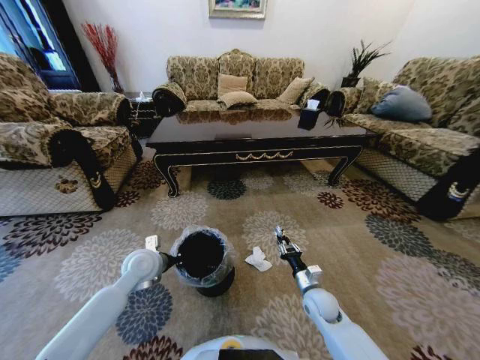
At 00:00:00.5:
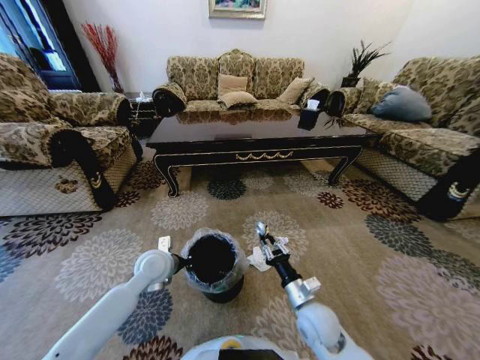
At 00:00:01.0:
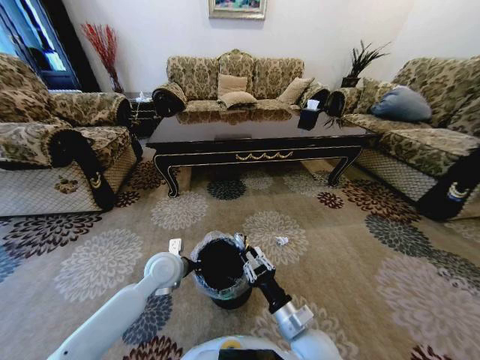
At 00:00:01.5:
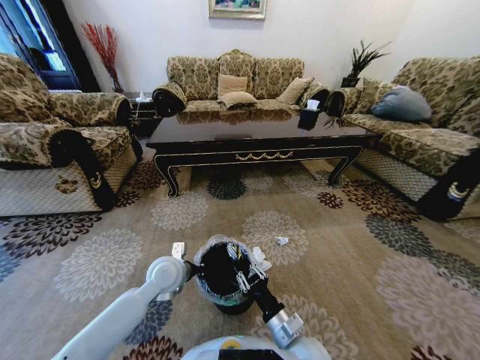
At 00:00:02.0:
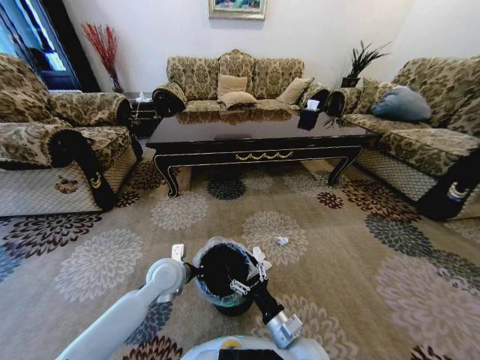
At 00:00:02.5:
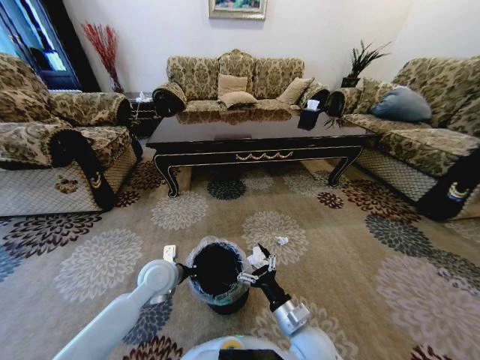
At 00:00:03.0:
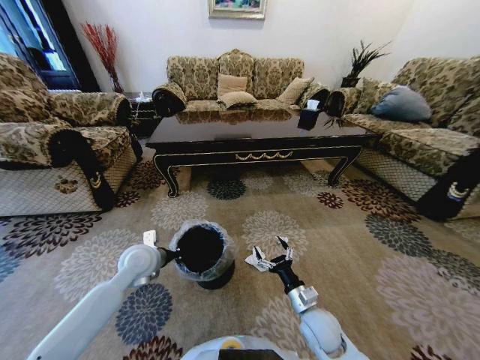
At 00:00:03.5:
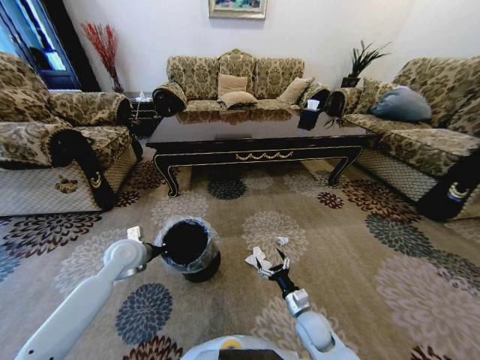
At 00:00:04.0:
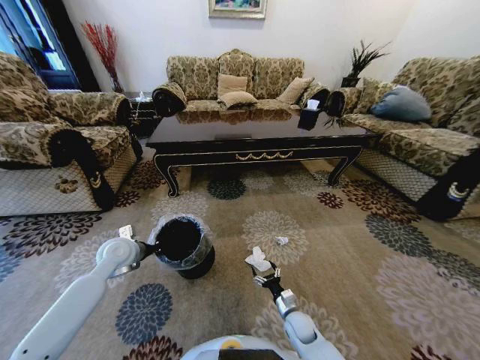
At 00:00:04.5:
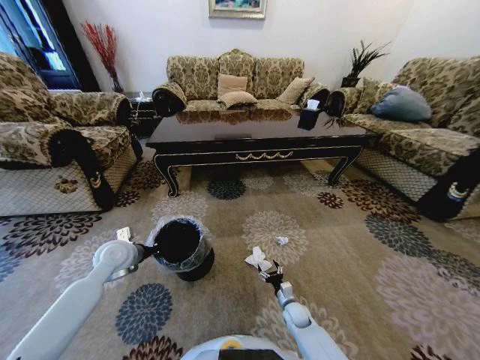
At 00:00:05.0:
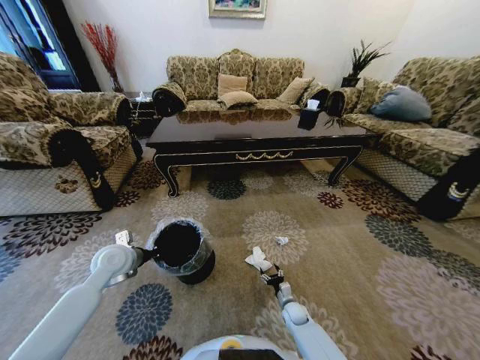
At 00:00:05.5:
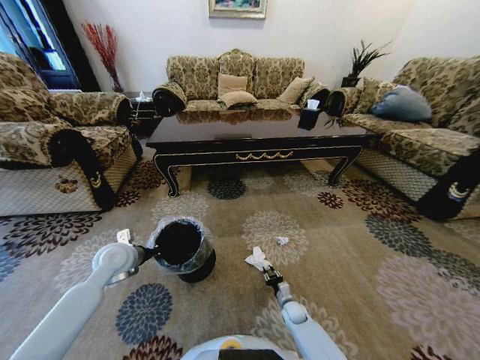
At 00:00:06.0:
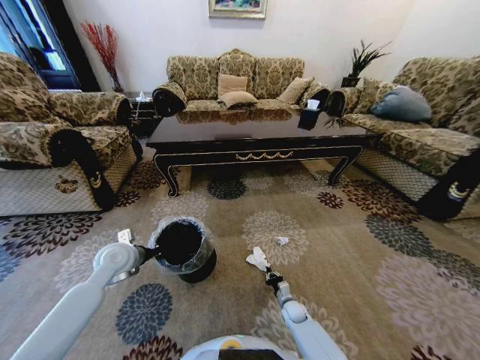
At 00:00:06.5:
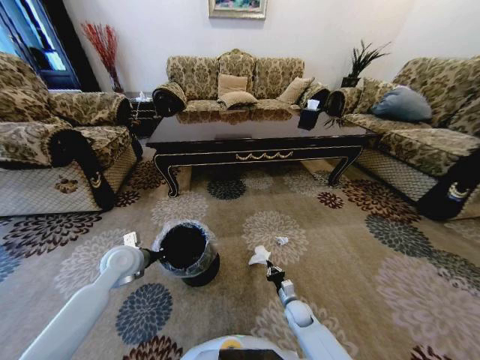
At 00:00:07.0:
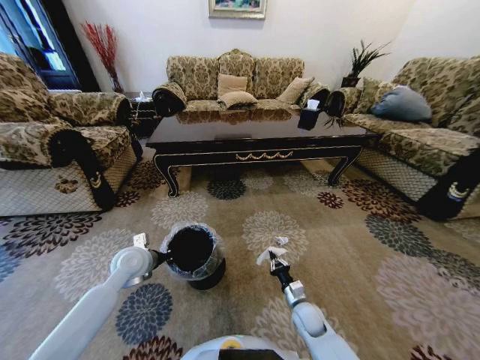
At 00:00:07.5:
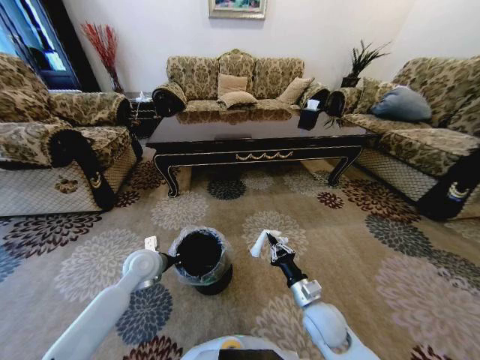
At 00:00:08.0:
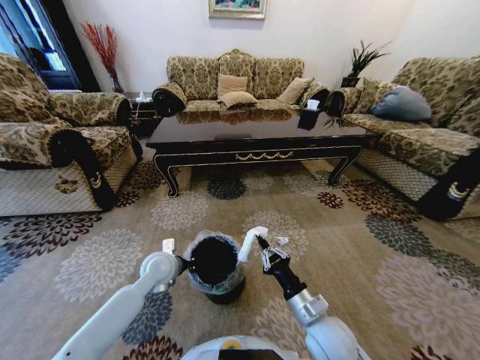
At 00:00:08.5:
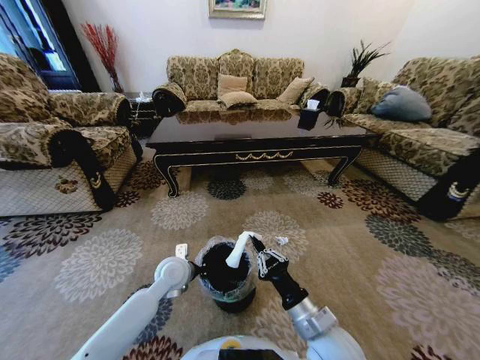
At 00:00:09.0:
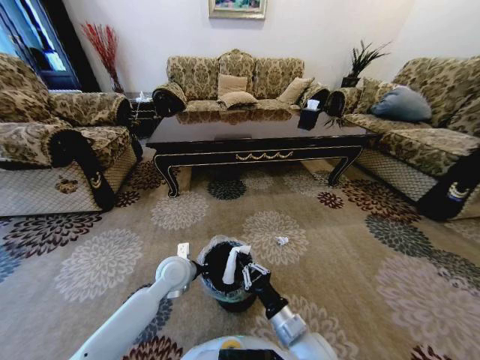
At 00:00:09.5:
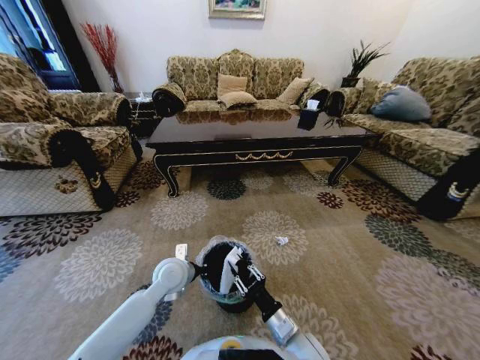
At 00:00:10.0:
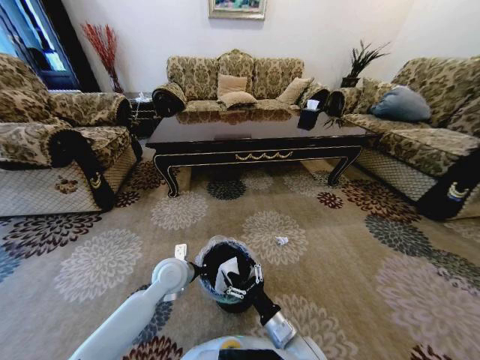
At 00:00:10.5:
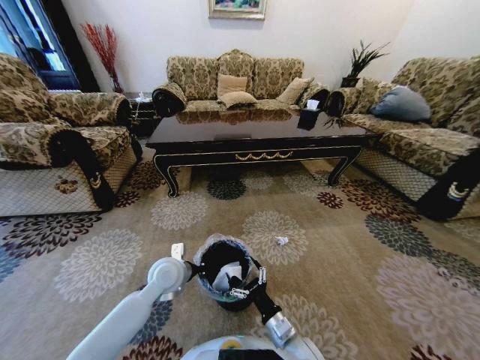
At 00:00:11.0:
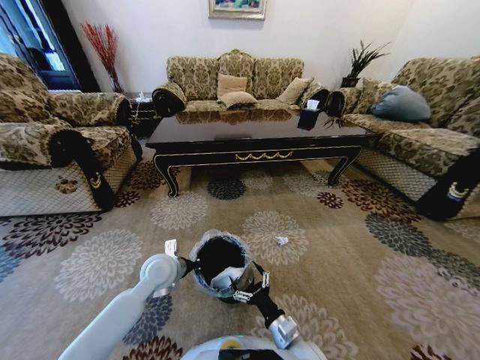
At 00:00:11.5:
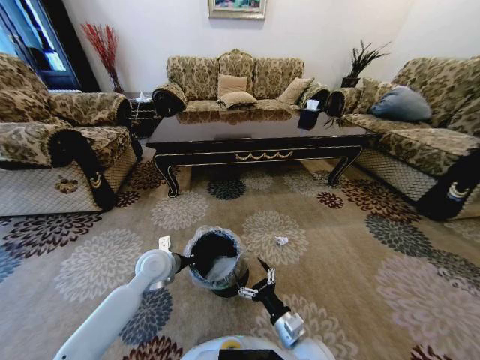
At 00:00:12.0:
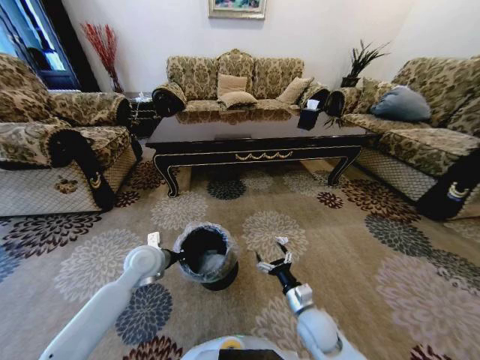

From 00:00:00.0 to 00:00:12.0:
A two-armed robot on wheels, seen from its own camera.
Task of the whole recording: Move to the front of the table and pick up the trash from the floor, then place it into the trash bin.
From 00:00:00.0 to 00:00:02.0: The left gripper moves to the right, approximately 5 cm, while the right gripper is displaced backward, to the left and upward by approximately 20 cm, and opens its fingers.
From 00:00:02.0 to 00:00:04.0: The right gripper travels downward, forward and to the right by about 20 cm, while the left gripper is displaced to the left by some 15 cm.
From 00:00:04.0 to 00:00:06.0: The right gripper shifts roughly 10 cm downward and forward, and closes up.
From 00:00:06.0 to 00:00:08.0: The left gripper is displaced to the right by some 10 cm. The right gripper shifts some 30 cm upward.
From 00:00:08.0 to 00:00:10.0: The right gripper travels downward by some 5 cm, and opens its fingers.
From 00:00:10.0 to 00:00:12.0: The left gripper heads to the left, covering some 10 cm, while the right gripper shifts some 10 cm to the right and forward.

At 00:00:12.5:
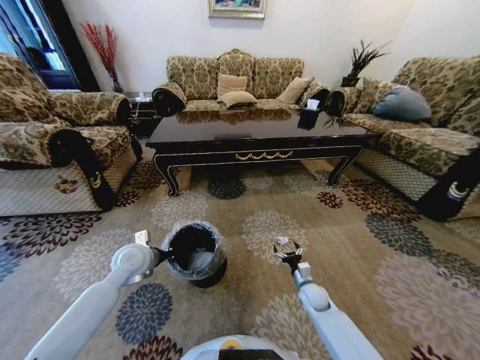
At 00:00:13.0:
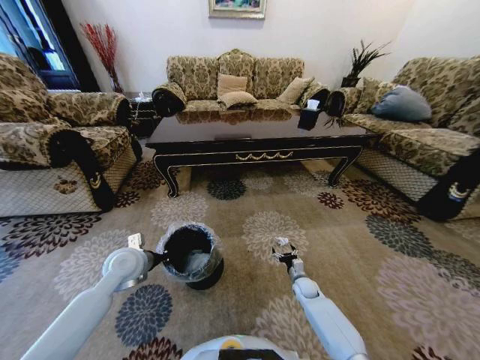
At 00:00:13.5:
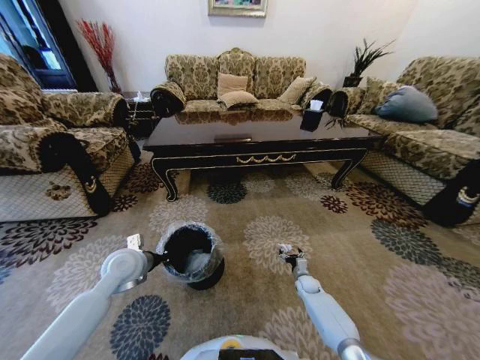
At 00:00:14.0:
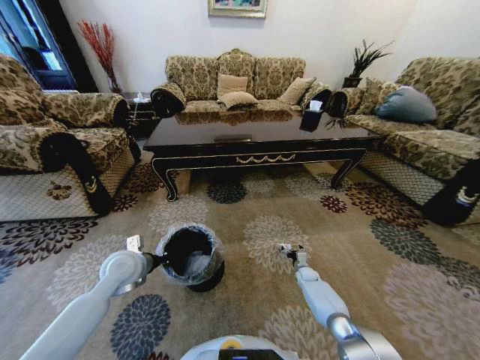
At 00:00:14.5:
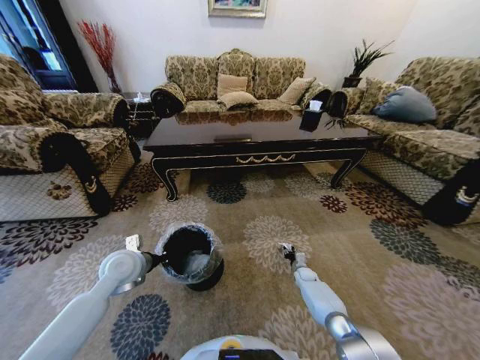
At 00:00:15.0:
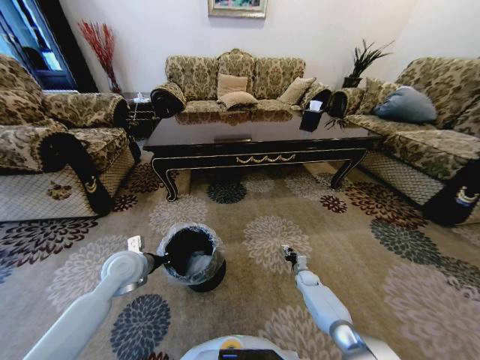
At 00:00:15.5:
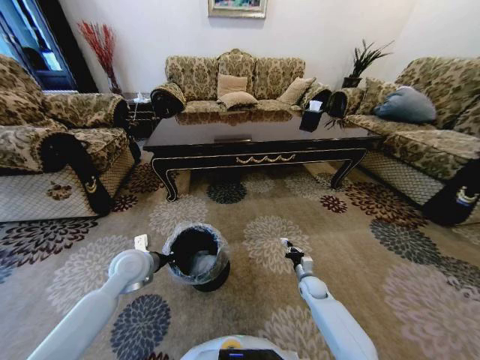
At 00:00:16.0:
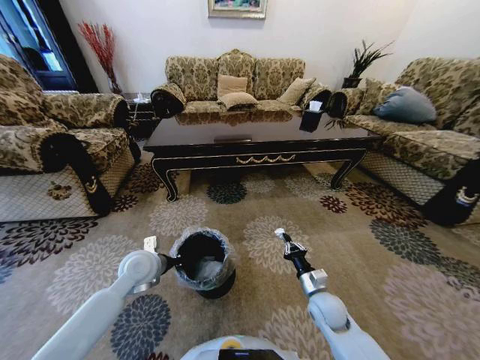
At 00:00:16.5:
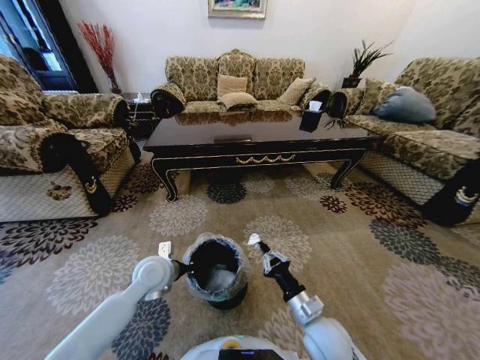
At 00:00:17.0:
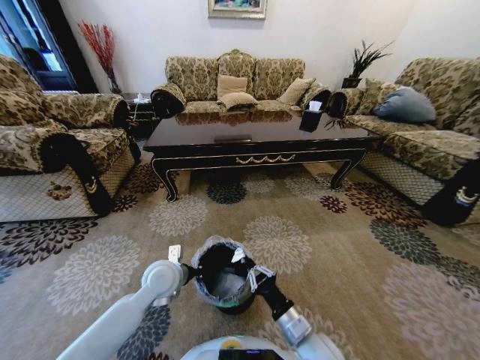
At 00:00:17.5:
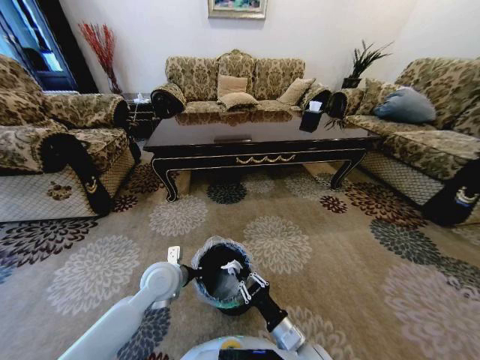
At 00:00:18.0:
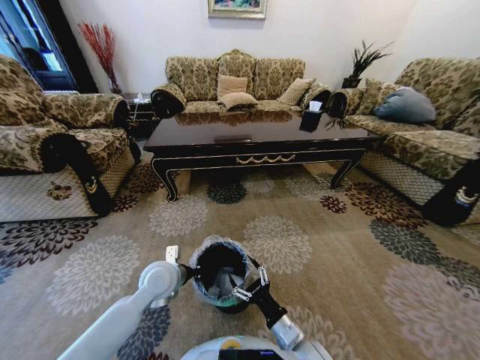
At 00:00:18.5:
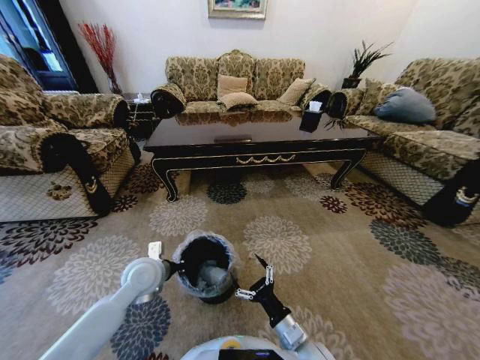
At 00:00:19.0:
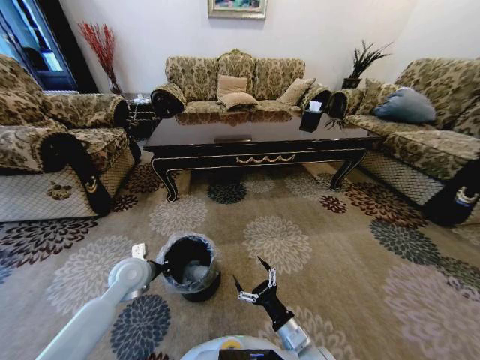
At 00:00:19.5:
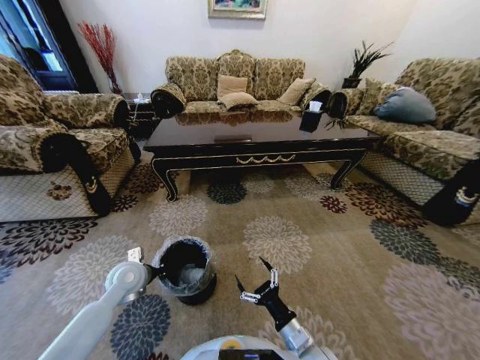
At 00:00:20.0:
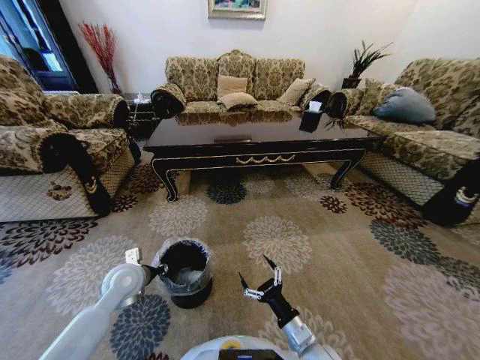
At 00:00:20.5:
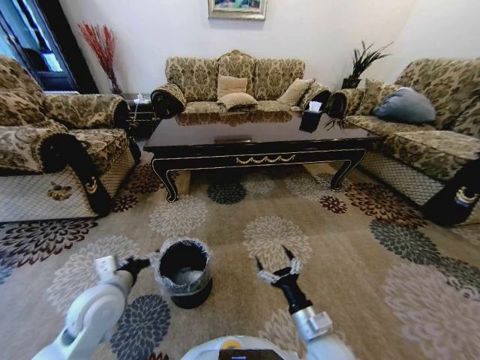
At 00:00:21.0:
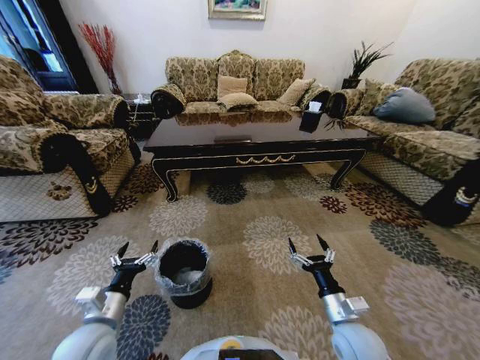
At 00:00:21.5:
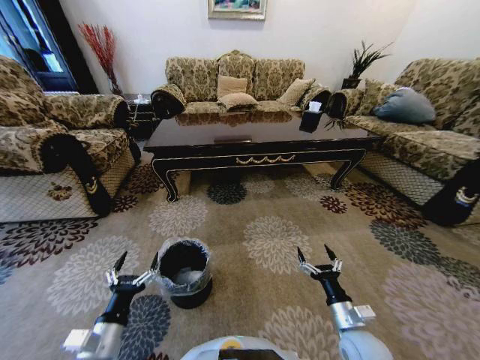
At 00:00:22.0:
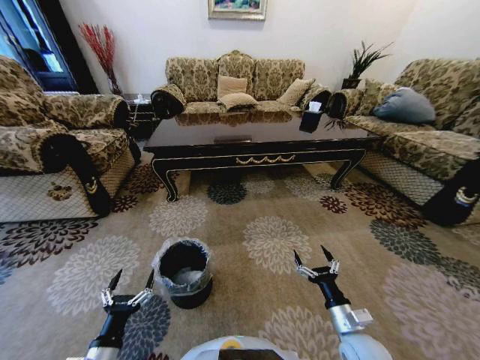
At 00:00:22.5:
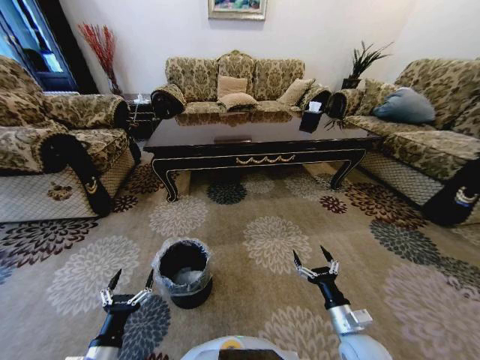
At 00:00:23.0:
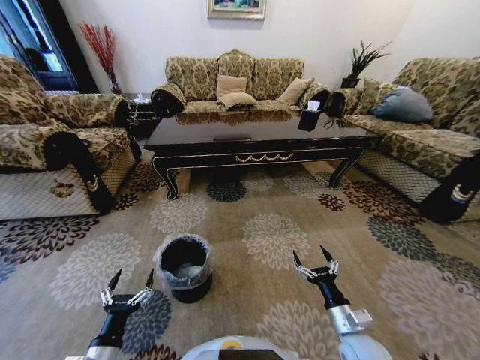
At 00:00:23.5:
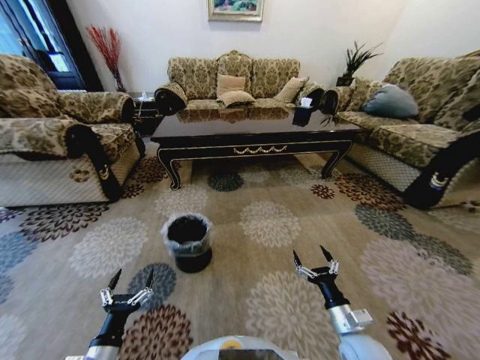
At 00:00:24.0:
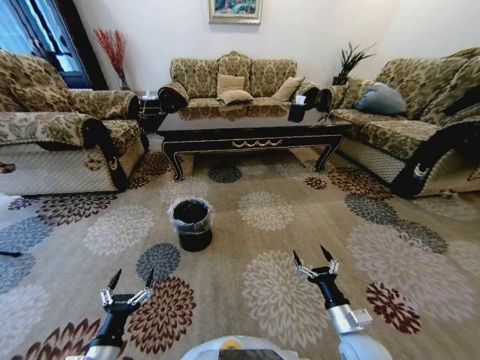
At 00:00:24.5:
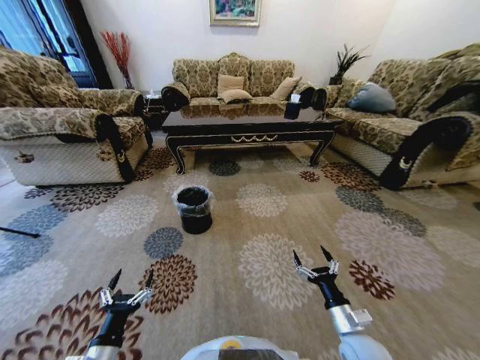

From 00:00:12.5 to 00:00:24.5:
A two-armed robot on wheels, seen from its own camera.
Task of the whole recording: Move to the front of the table and pick up the trash from the floor, then place it into the trash bin.
From 00:00:12.5 to 00:00:14.5: The right gripper is displaced forward, downward and to the right by some 15 cm, and closes its fingers.
From 00:00:14.5 to 00:00:16.5: The right gripper travels upward, backward and to the left by approximately 40 cm, and closes. Meanwhile the left gripper is displaced to the right by about 10 cm.
From 00:00:16.5 to 00:00:18.5: The right gripper ends up about 5 cm from where it was, and opens up.
From 00:00:18.5 to 00:00:20.5: The left gripper is displaced backward and to the left by roughly 10 cm, and opens up.
From 00:00:20.5 to 00:00:22.5: The right gripper goes approximately 10 cm to the right. Meanwhile the left gripper travels backward and downward by approximately 20 cm.
